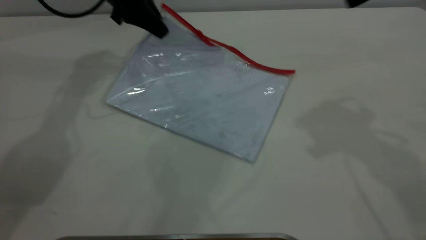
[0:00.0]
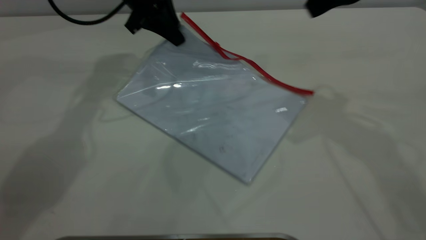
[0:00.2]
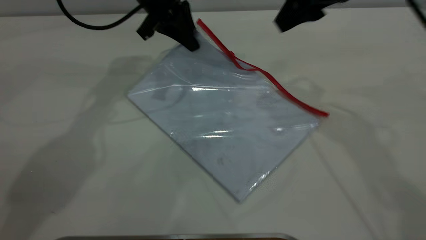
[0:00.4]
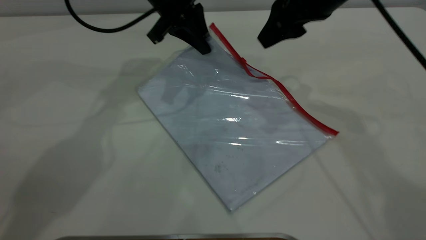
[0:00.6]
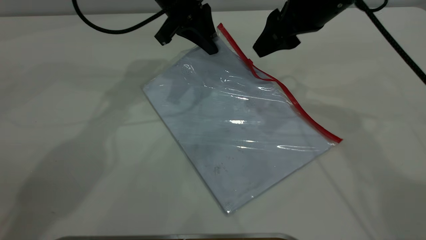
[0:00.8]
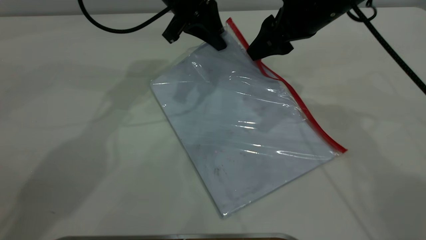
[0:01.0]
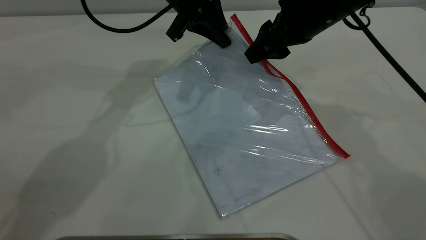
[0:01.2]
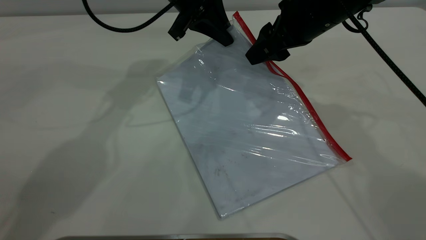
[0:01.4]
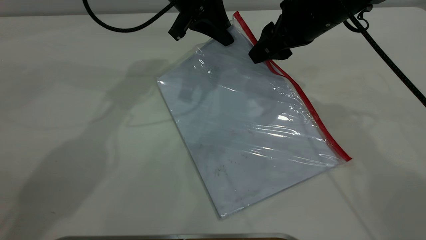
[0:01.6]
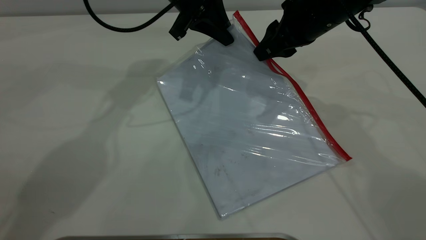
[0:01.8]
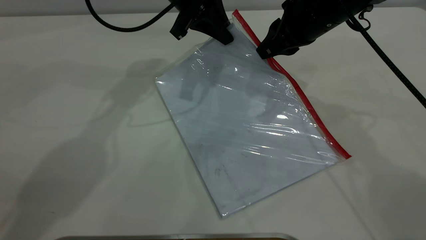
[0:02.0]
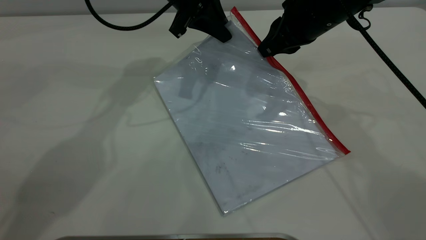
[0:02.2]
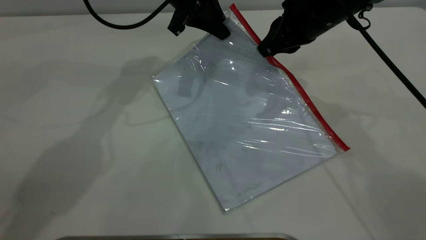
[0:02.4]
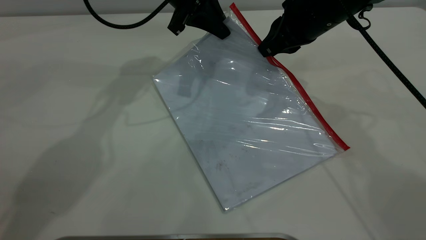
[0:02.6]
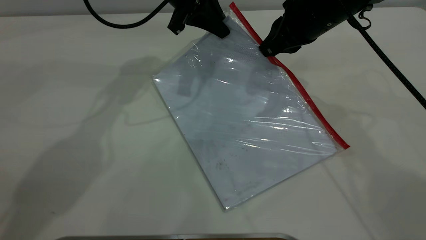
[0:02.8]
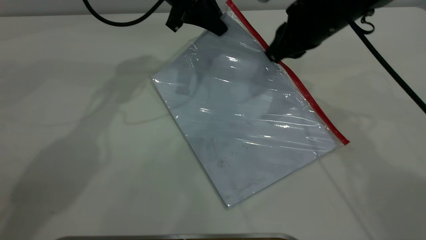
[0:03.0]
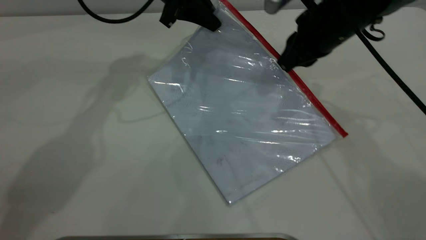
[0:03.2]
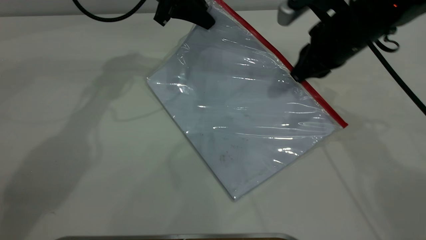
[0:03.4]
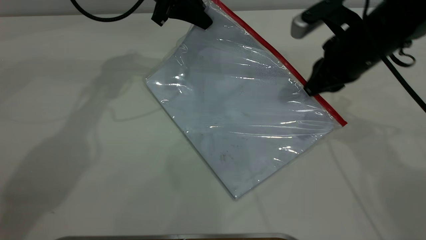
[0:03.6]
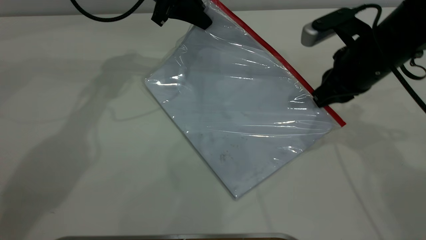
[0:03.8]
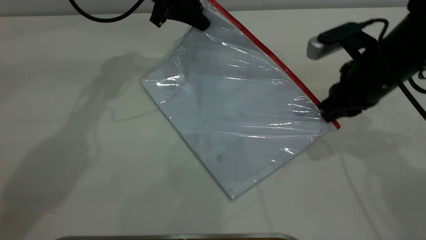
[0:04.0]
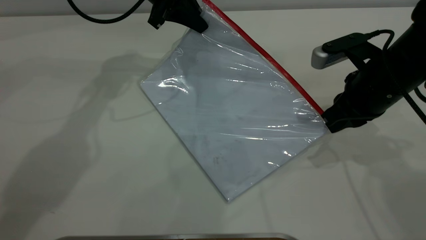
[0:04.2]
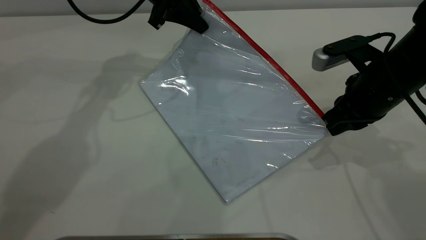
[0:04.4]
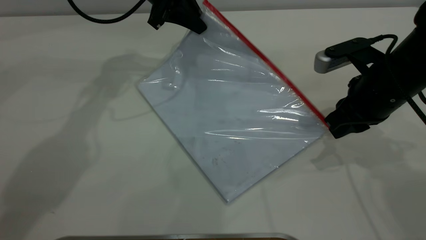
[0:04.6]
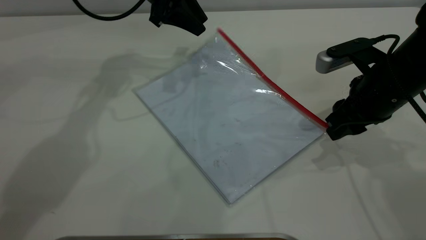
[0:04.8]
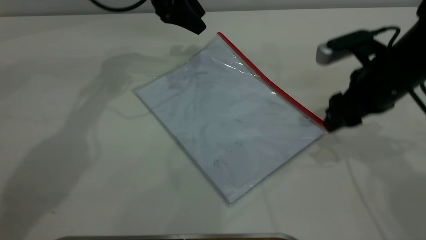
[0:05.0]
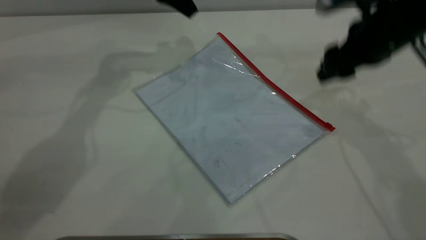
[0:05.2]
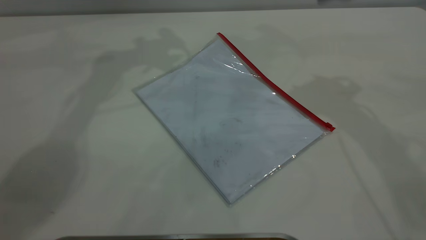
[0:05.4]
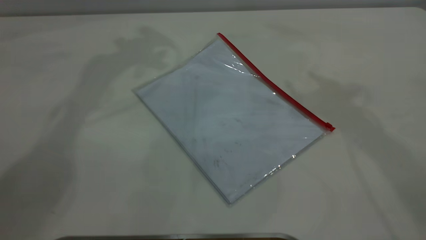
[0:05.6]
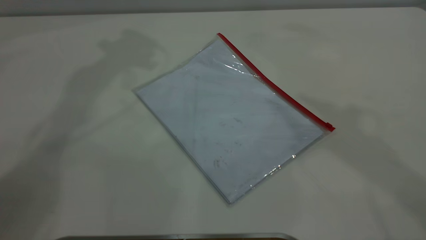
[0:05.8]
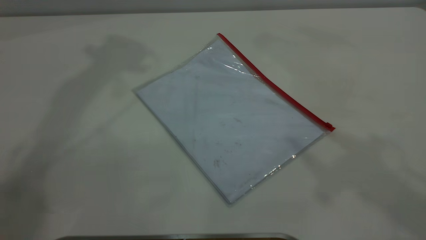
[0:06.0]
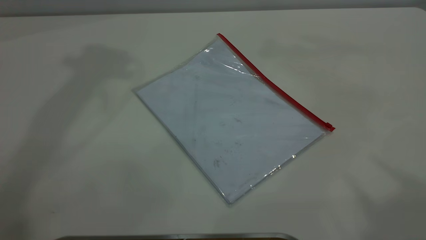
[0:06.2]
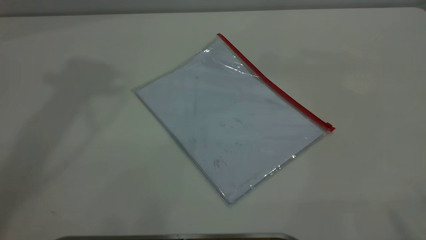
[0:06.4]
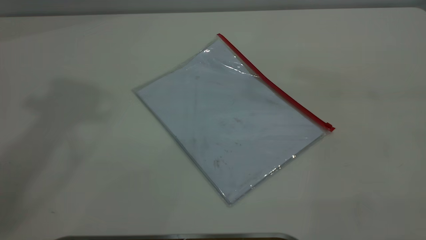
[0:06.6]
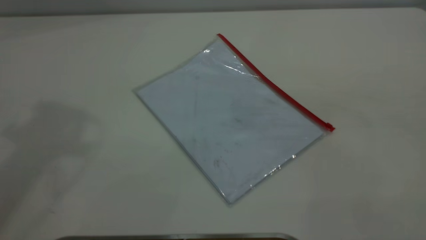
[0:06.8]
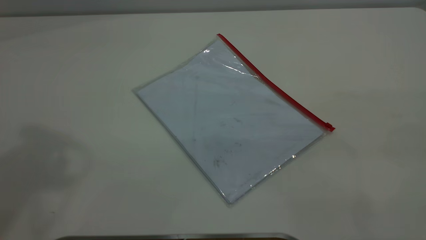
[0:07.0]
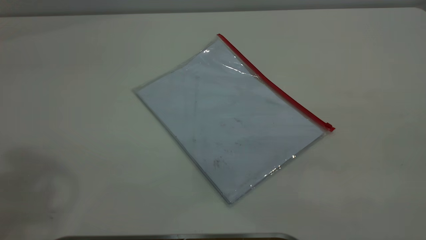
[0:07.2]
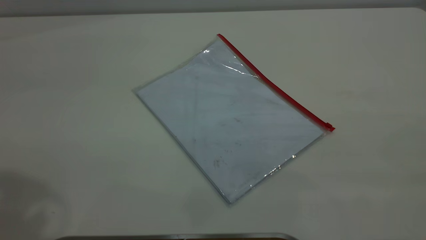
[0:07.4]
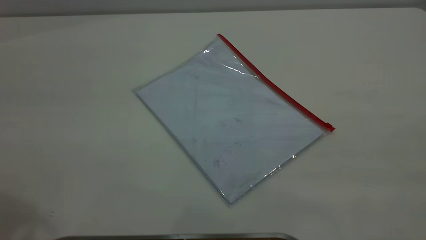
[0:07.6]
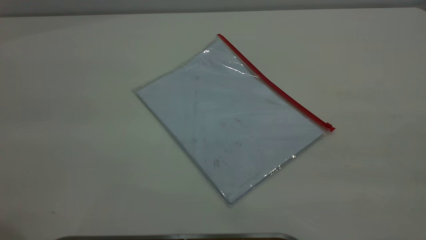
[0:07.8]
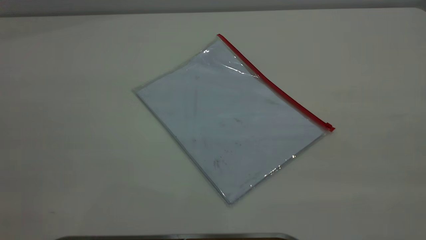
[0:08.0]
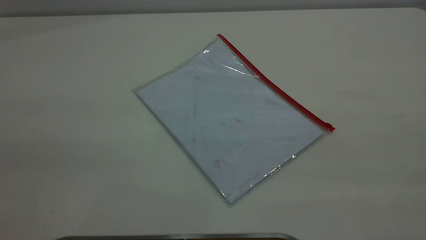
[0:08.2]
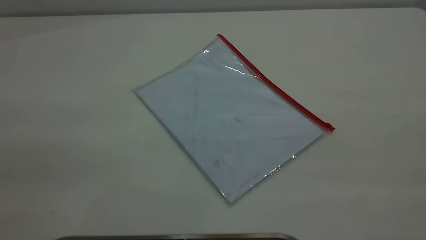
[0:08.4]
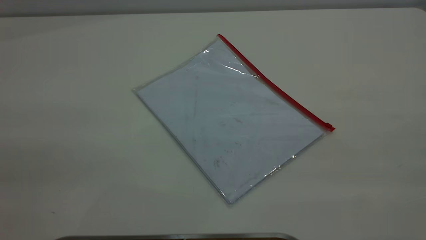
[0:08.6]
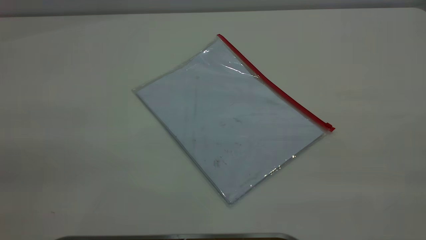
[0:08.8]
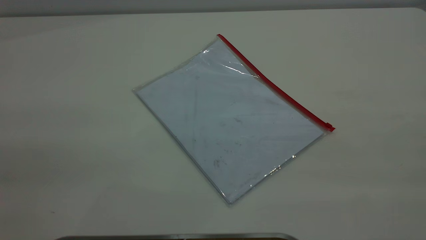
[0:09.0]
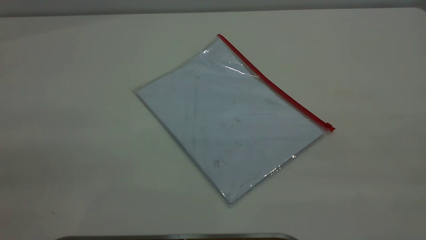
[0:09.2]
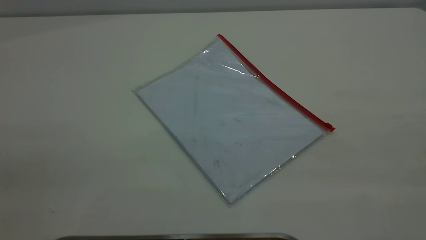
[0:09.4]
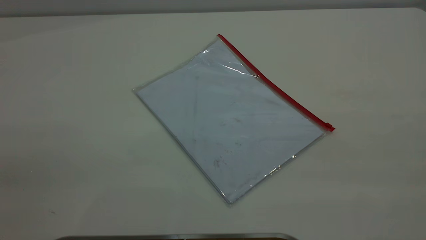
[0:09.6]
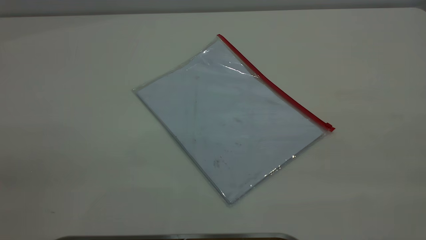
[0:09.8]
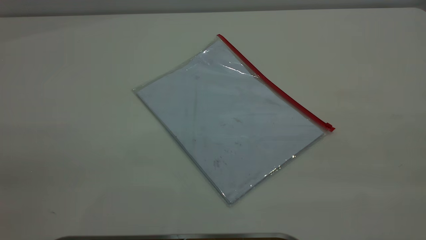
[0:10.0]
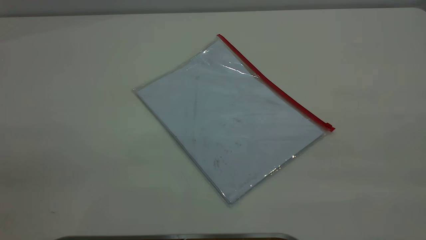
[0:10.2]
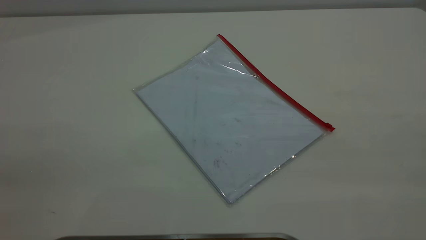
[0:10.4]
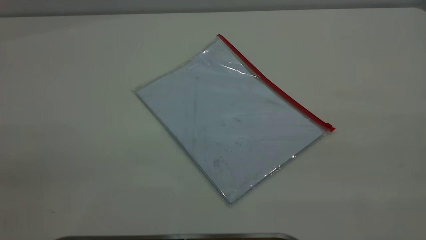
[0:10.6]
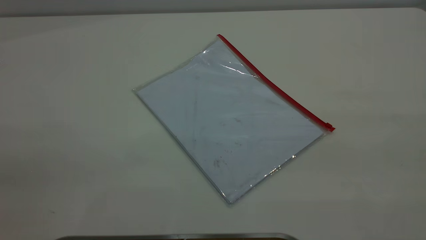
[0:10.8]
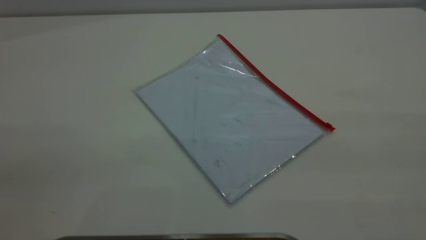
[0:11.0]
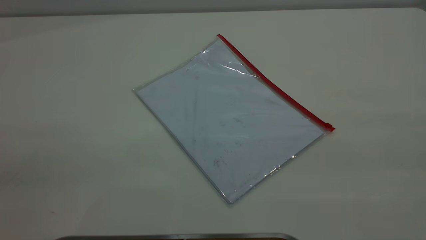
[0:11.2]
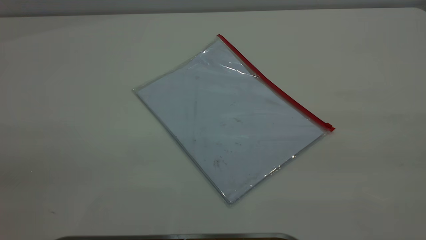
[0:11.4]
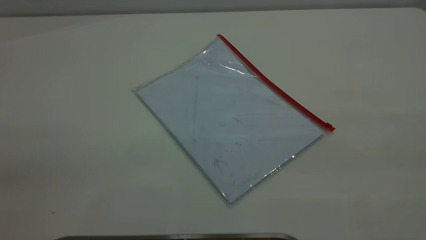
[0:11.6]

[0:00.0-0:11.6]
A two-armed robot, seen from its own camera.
Step, 0:00.0 to 0:04.4: Pulling up the zipper on the transparent plastic bag with the right gripper to close it.
Step, 0:04.6 to 0:05.0: Place the transparent plastic bag.
0:00.0 to 0:01.4: The left gripper is displaced to the right by about 10 cm. Meanwhile the right gripper is displaced downward, forward and to the left by about 15 cm.
0:01.4 to 0:02.8: The right gripper closes up.
0:02.8 to 0:04.4: The right gripper moves backward, to the right and downward, some 15 cm.
0:04.4 to 0:05.8: Both grippers travel together upward, approximately 35 cm. The left gripper opens its fingers. The right gripper opens its fingers.

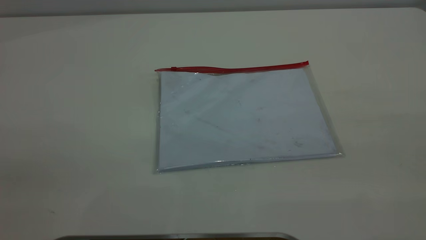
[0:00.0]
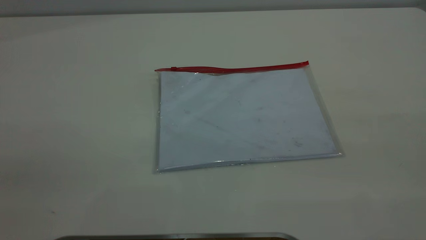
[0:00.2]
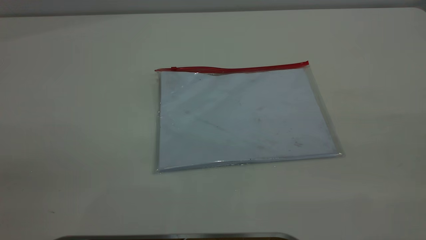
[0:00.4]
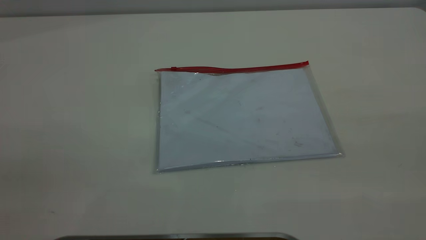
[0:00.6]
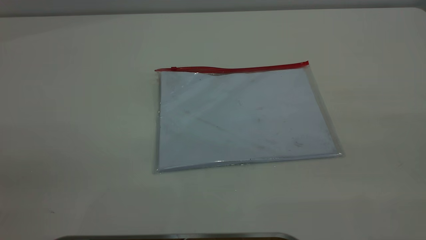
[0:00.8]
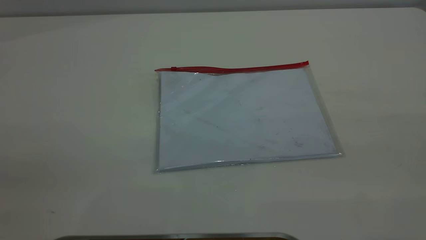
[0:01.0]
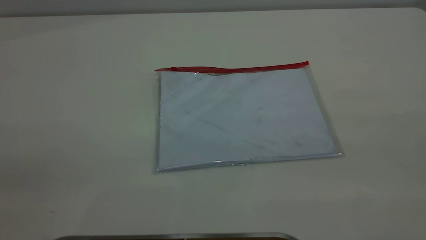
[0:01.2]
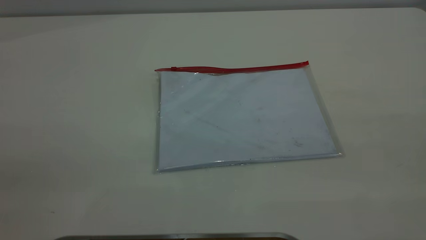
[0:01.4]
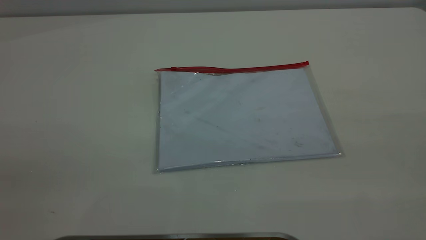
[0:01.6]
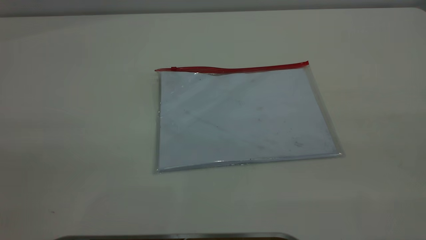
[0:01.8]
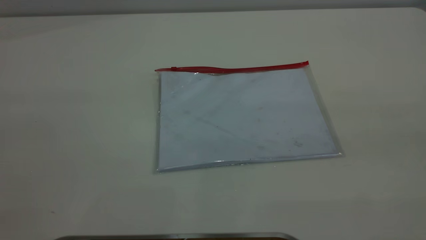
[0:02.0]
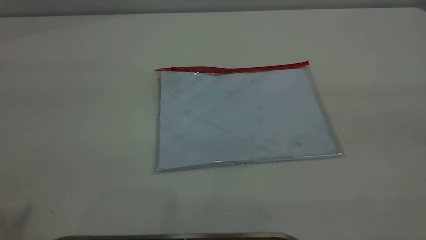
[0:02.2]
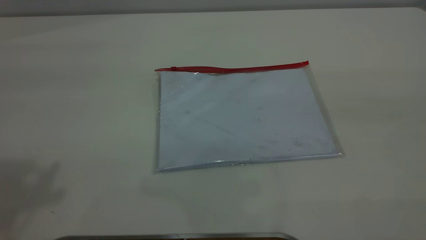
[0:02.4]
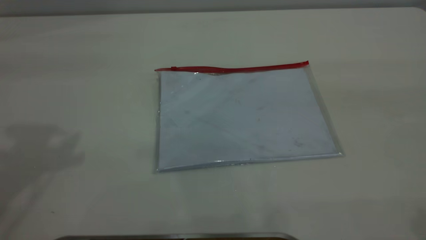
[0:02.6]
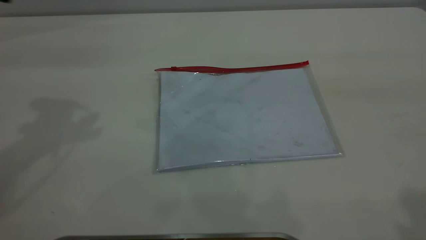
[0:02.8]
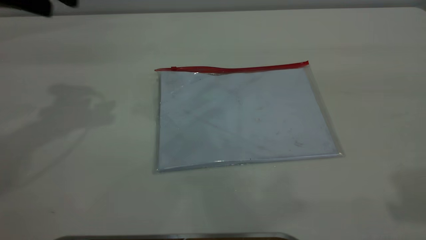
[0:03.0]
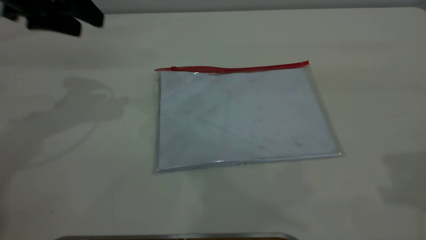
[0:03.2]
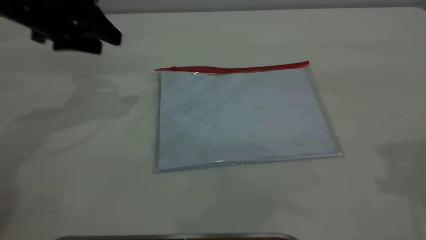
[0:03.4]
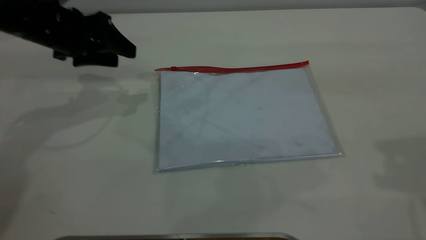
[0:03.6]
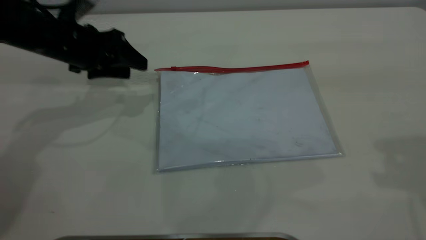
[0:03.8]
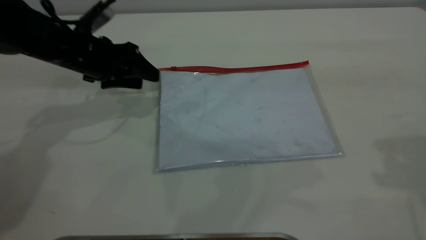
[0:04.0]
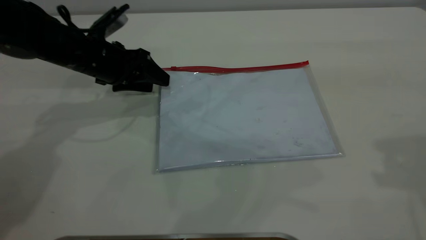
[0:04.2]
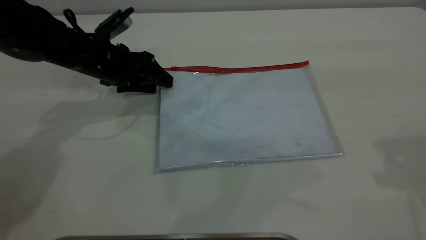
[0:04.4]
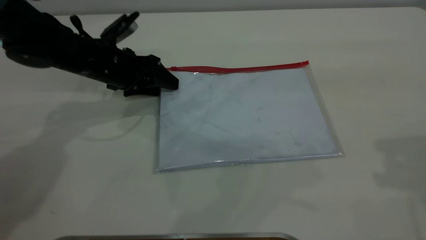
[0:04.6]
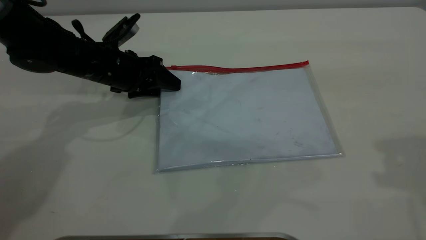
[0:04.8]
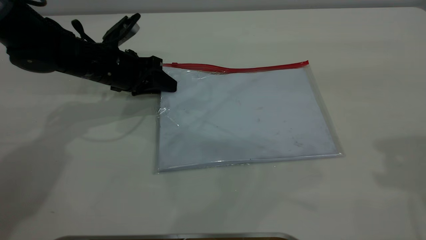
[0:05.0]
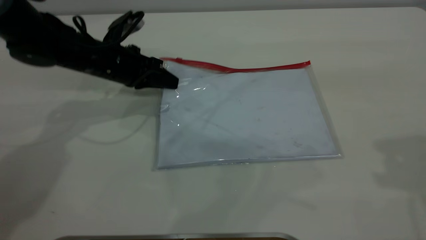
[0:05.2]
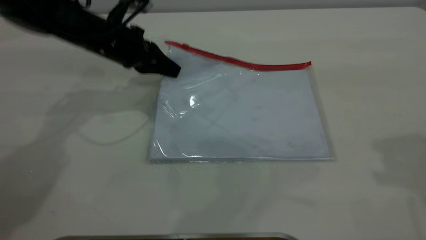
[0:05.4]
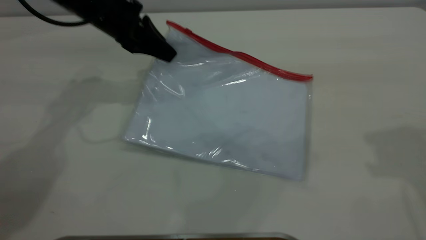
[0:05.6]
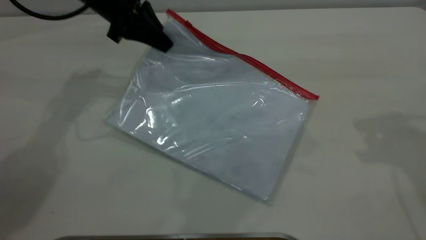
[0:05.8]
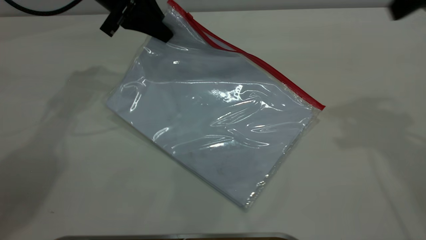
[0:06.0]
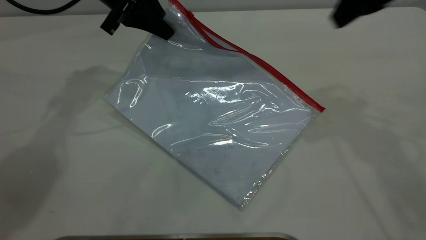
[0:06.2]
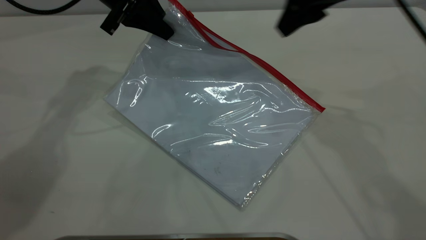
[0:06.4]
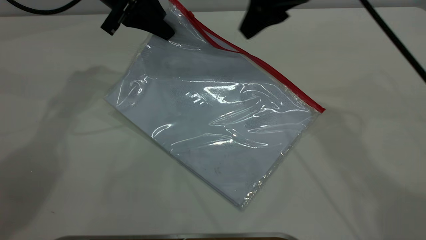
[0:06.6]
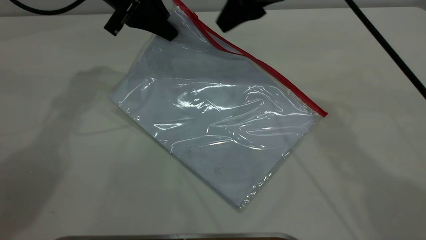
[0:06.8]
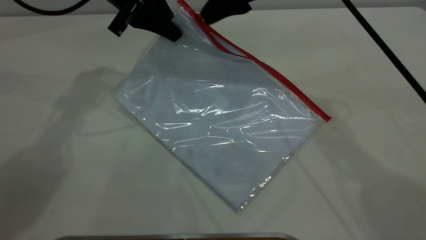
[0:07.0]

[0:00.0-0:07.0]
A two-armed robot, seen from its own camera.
Step, 0:00.0 to 0:05.2: Pick up the transparent plastic bag with the left gripper.
0:00.0 to 0:01.4: Both grippers stay put.
0:02.8 to 0:04.2: The left gripper heads downward, covering approximately 25 cm. Meanwhile the right gripper moves forward and downward, about 10 cm.
0:04.2 to 0:05.6: The left gripper moves upward, roughly 10 cm, and closes up.
0:05.6 to 0:07.0: The right gripper is displaced to the left and forward by some 25 cm.
